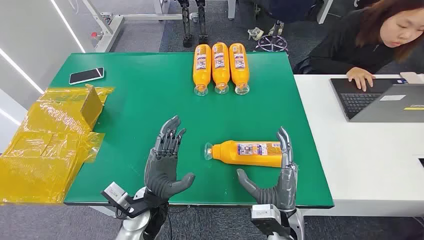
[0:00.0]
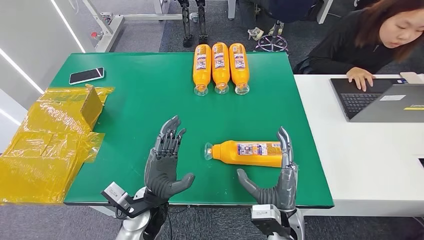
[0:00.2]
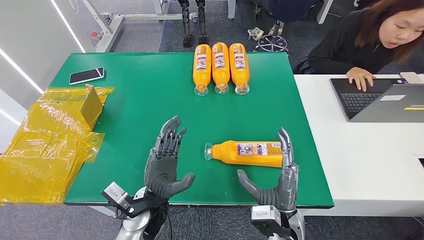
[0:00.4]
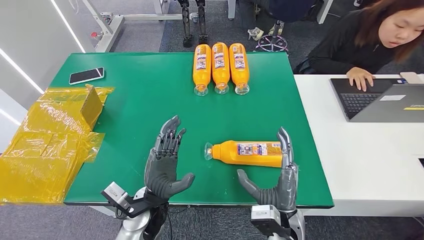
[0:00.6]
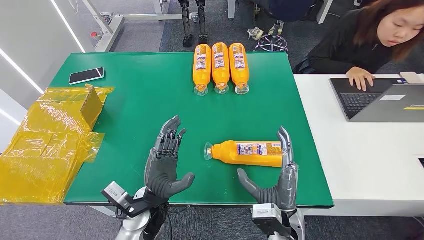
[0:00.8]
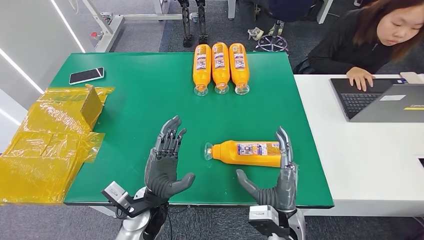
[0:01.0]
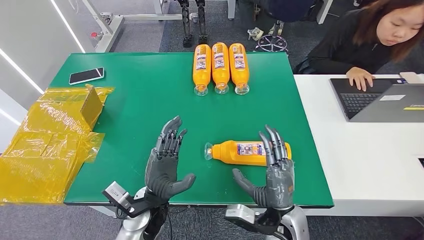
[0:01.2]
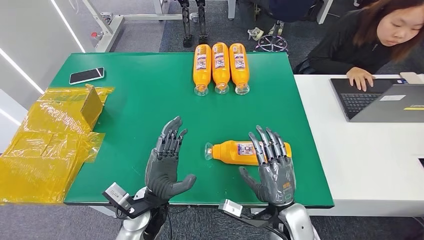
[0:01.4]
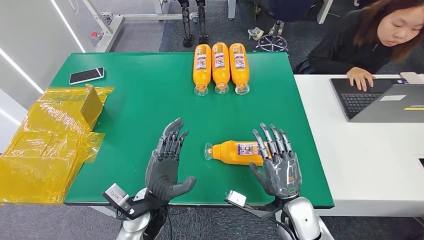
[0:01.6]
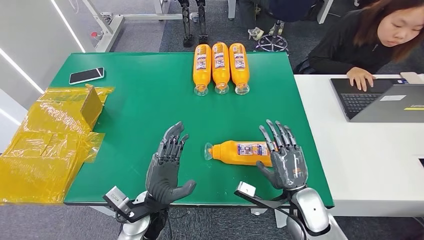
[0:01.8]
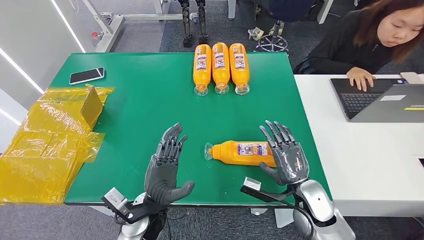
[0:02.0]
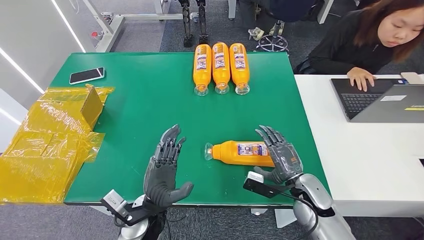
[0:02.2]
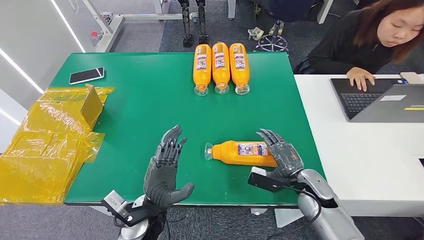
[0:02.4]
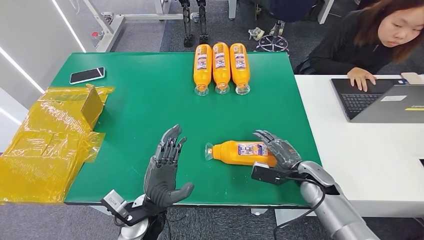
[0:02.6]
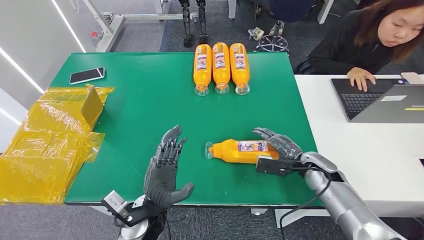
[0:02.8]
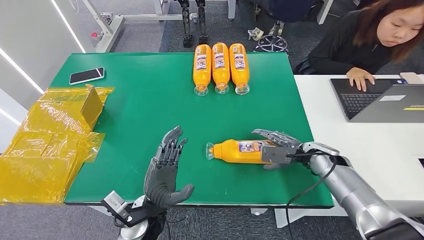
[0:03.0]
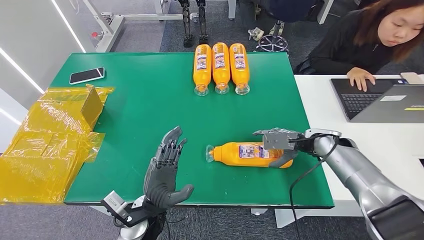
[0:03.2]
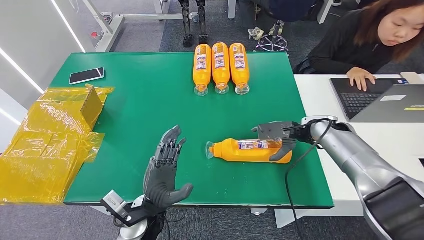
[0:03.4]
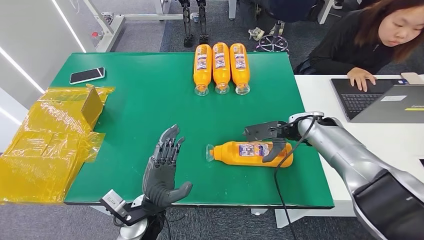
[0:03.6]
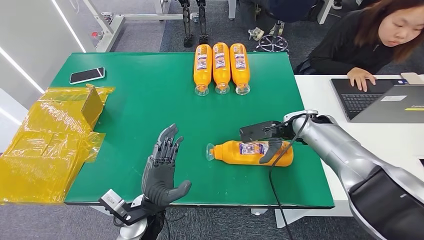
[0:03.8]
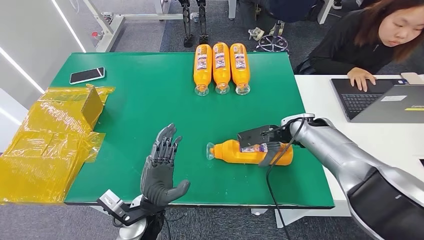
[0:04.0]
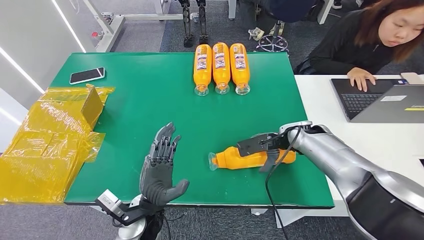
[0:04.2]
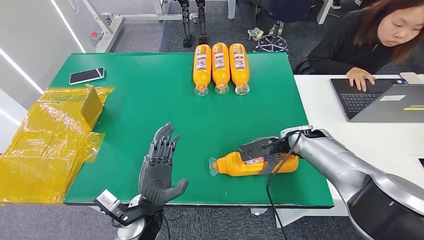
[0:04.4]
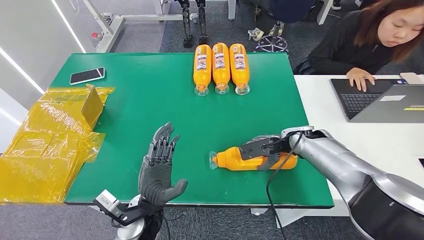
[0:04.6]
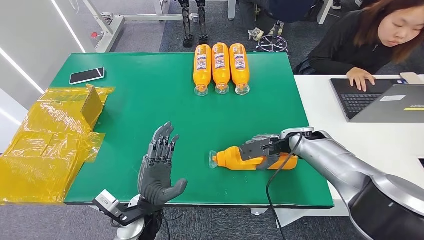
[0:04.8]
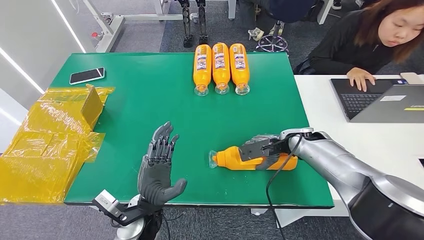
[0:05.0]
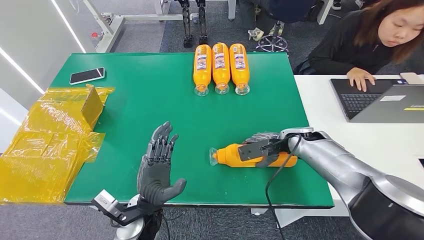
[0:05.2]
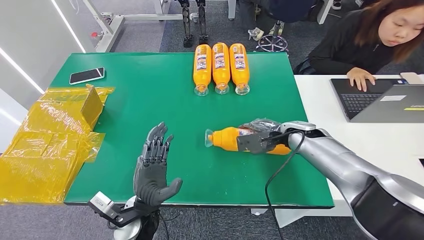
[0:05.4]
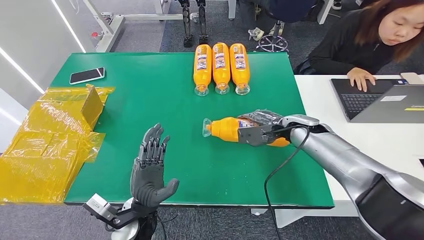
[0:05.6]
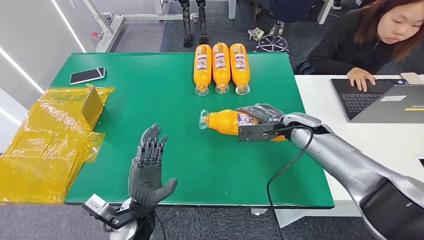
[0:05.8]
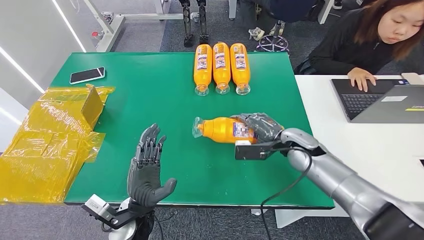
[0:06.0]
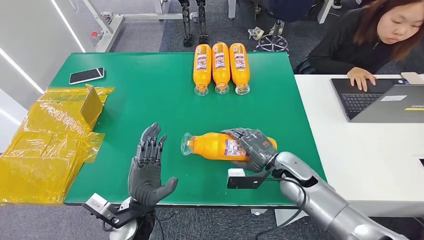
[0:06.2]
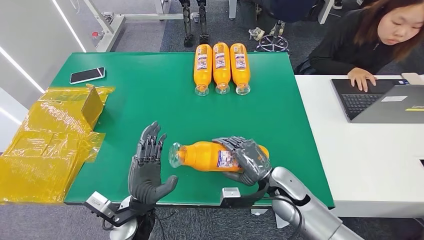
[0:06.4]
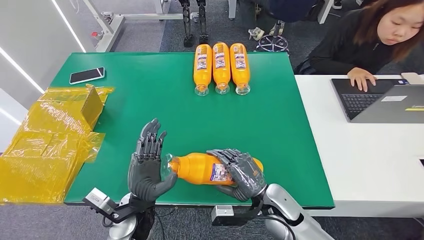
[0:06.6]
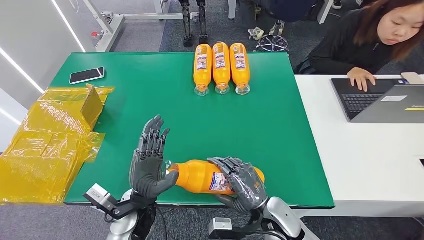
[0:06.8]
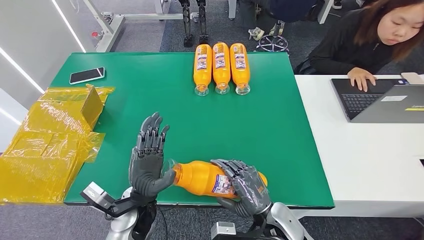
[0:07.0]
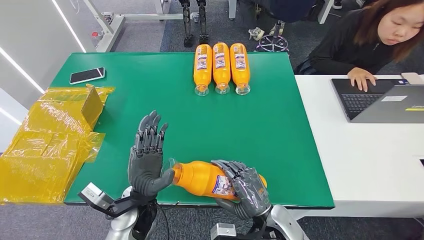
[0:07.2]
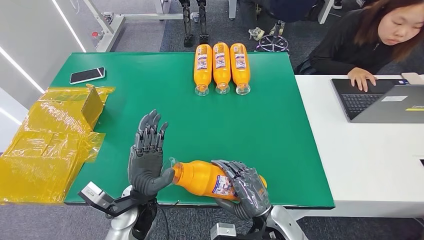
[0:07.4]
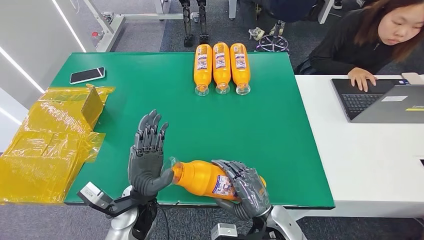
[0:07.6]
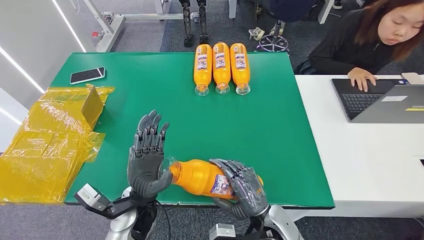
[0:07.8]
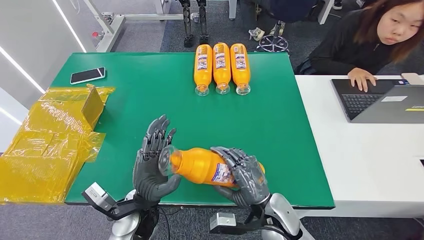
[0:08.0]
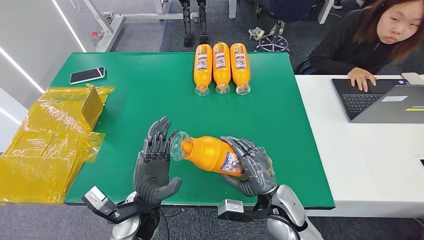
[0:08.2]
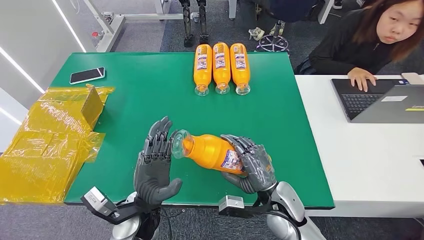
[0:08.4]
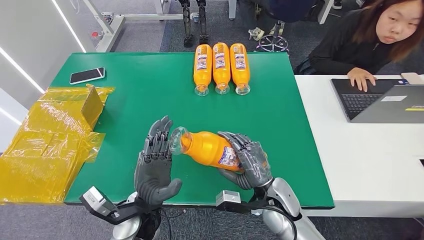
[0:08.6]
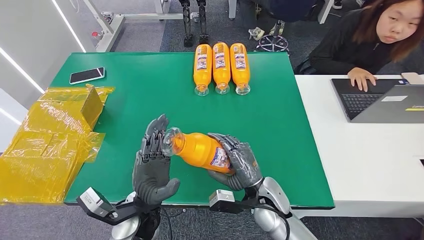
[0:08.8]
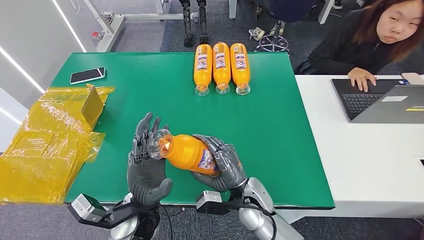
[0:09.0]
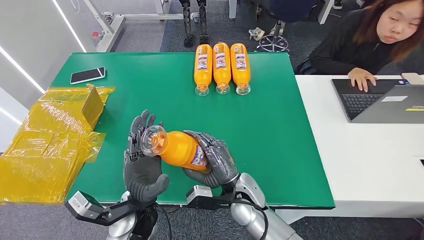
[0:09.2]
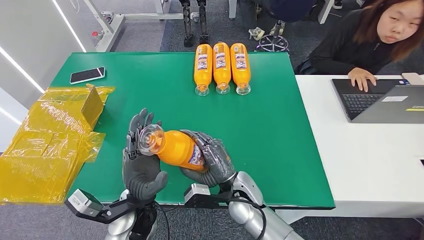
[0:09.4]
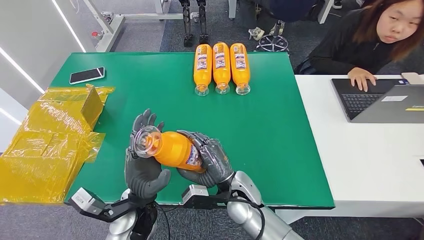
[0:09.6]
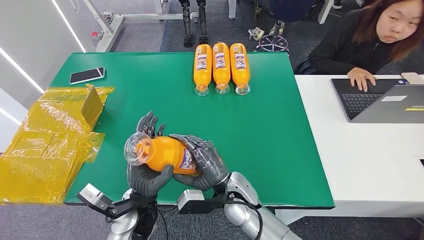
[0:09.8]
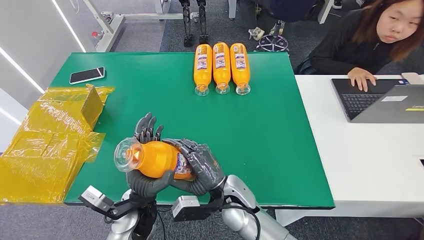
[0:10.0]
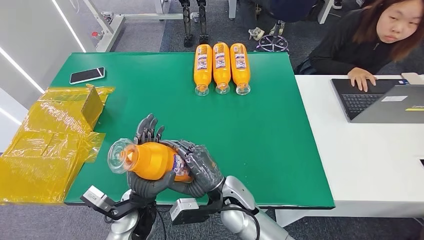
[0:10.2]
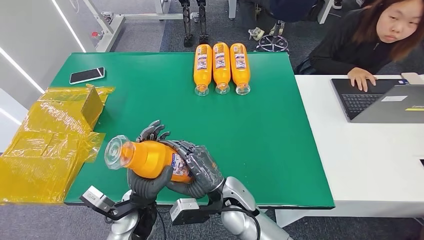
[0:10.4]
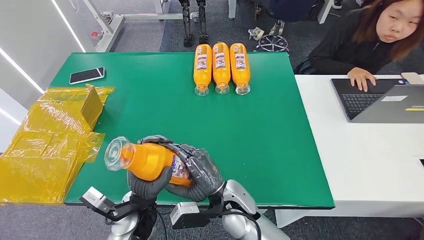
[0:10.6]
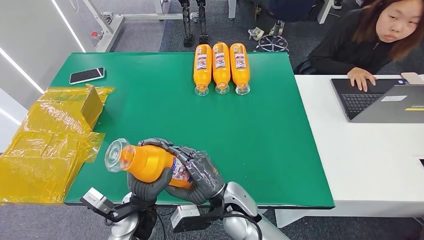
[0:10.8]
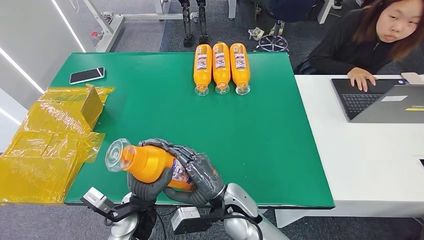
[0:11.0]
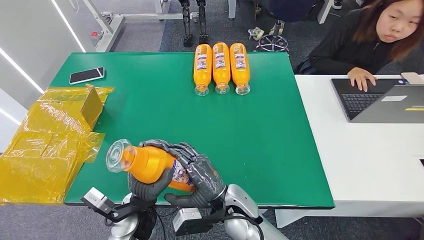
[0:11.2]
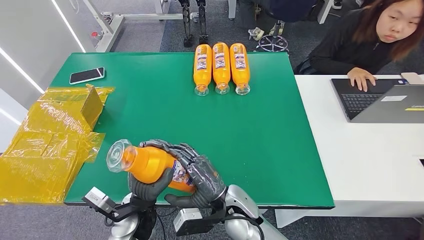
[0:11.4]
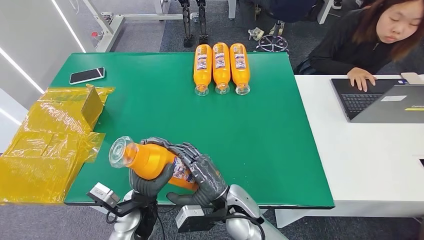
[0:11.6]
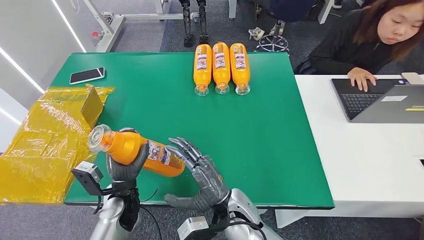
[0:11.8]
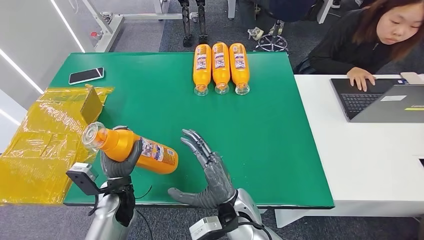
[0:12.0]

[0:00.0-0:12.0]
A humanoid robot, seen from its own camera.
Step, 0.0 to 6.4 s: Pick up the bottle from the table.
1.6 to 3.0 s: The right hand travels forward and to the right by some 20 cm.
3.0 to 4.4 s: The right hand changes place by approximately 10 cm.
6.0 to 7.6 s: The right hand heads backward and to the left, covering some 20 cm.
7.6 to 9.0 s: The right hand shifts about 10 cm forward and to the left.
9.0 to 10.4 s: The right hand is displaced to the left by approximately 5 cm.
10.4 to 12.0 s: The left hand goes approximately 5 cm to the left.

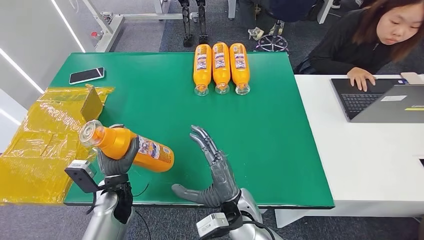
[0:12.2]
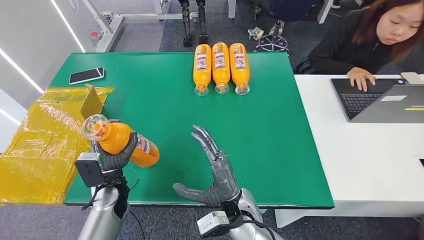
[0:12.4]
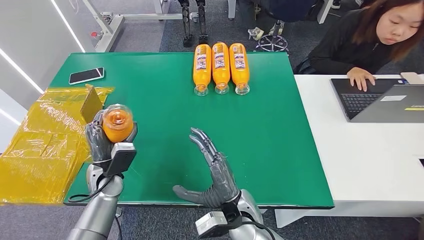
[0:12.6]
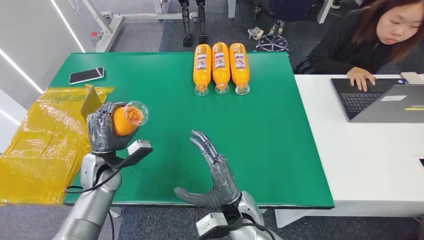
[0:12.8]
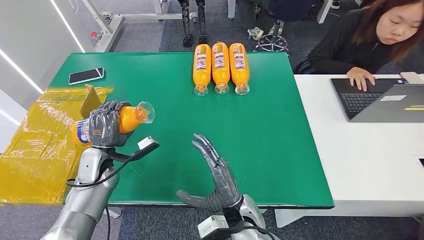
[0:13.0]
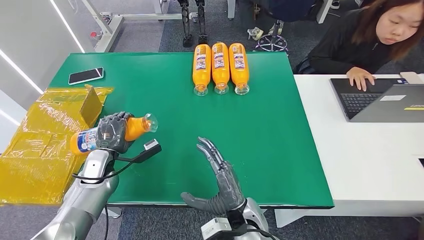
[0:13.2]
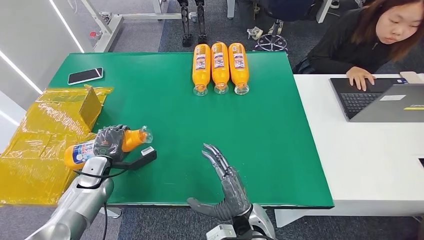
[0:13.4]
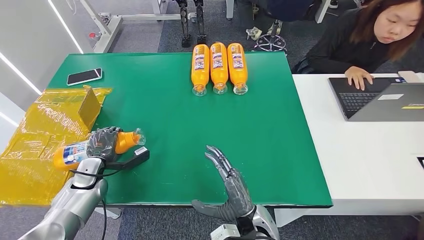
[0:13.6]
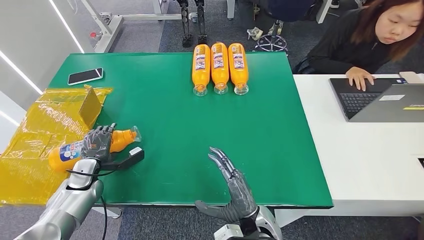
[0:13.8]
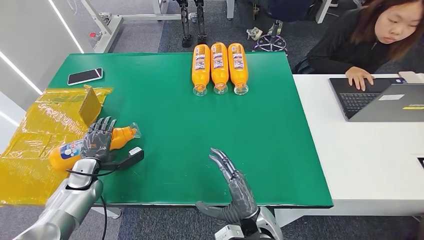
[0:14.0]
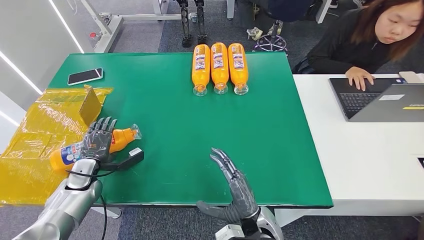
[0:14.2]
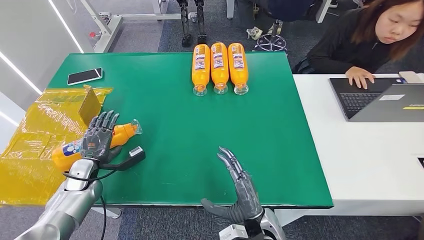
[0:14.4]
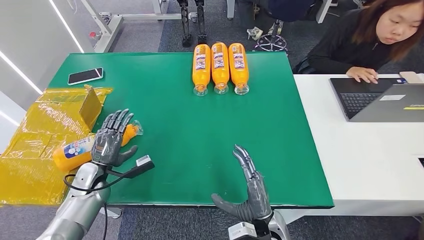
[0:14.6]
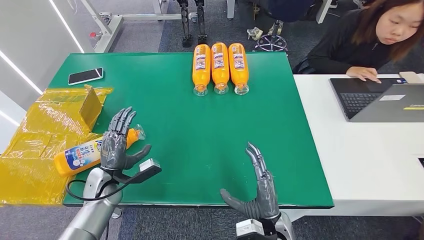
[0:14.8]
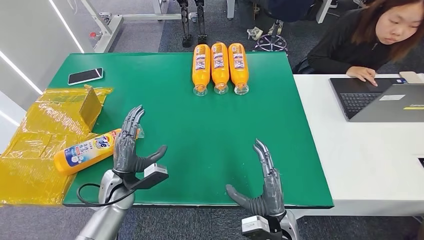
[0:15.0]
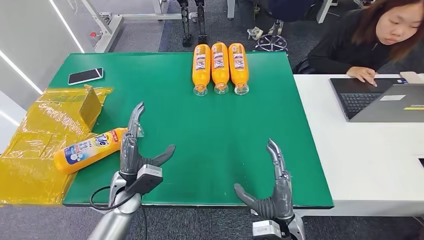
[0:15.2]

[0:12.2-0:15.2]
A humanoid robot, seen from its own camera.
Step, 12.2 to 15.0 s: Turn the bottle to the front side.
12.2 to 13.8 s: The right hand shifts about 5 cm to the right. The left hand shifts approximately 15 cm to the left.
13.8 to 15.2 s: The left hand heads to the right, covering about 20 cm; the right hand moves to the right, roughly 5 cm.

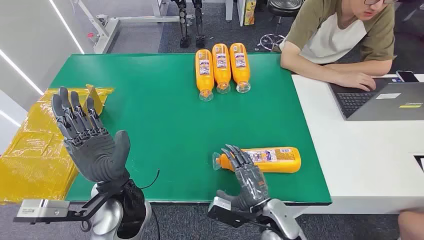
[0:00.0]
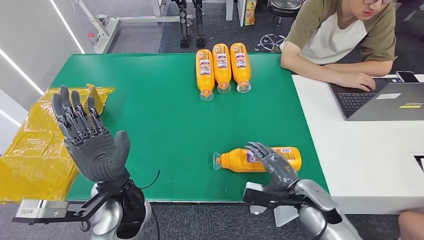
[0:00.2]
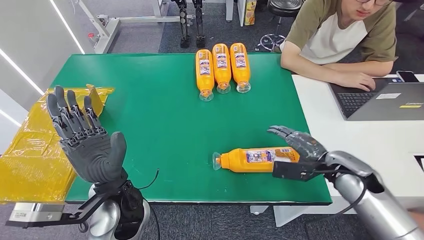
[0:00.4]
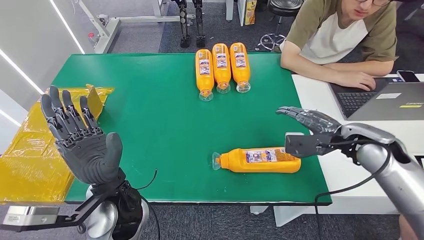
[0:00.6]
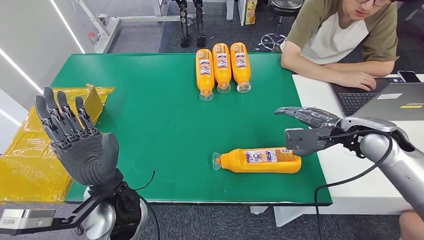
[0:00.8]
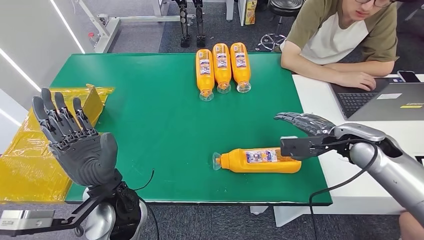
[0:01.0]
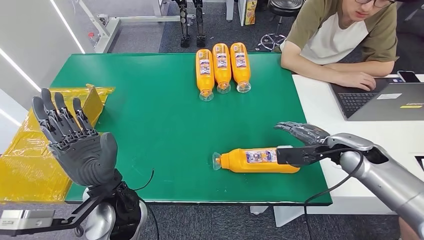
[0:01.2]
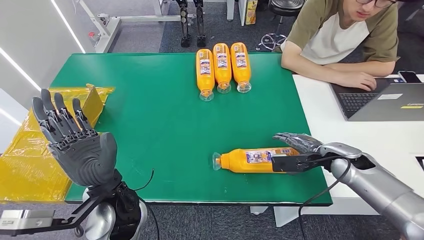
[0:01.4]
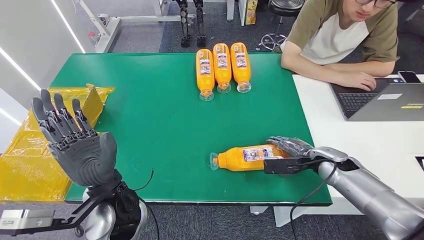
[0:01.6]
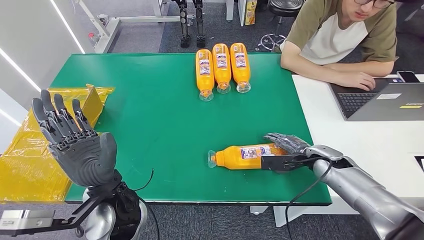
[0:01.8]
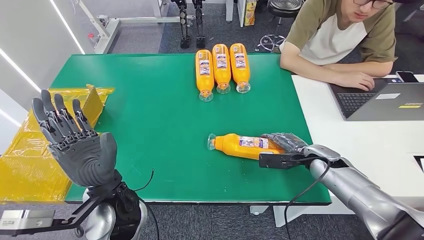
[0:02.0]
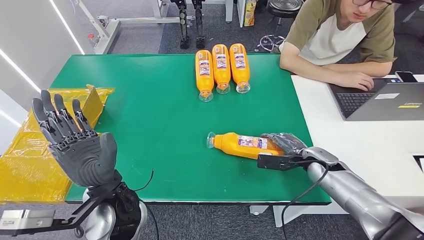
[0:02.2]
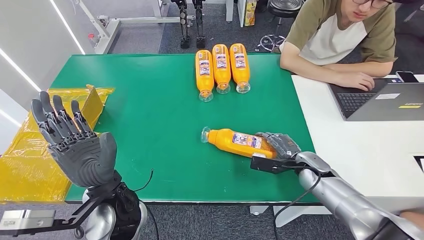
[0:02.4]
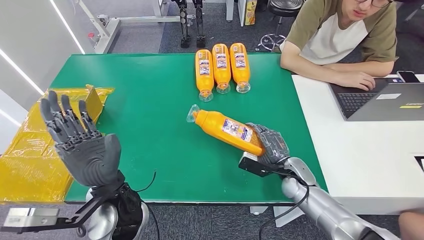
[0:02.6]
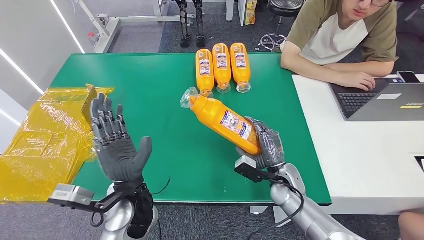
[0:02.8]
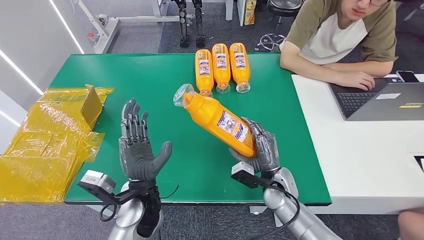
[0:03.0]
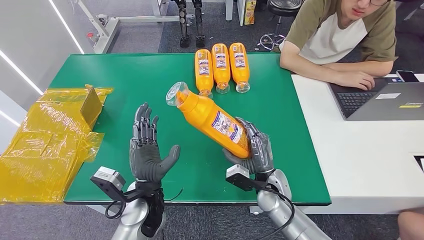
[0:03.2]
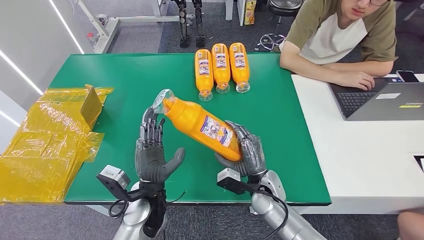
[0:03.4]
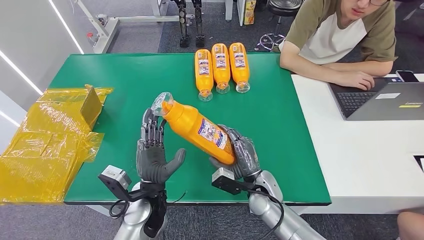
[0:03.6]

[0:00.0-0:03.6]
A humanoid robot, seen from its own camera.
Step, 0.0 to 3.2 s: Pick up the bottle from the table.
